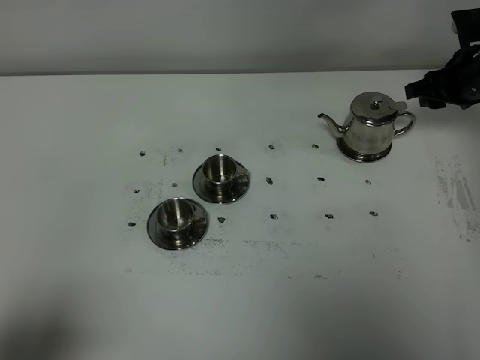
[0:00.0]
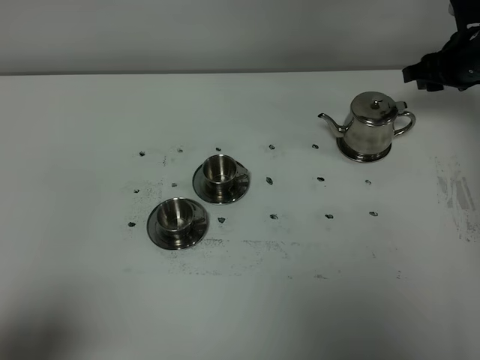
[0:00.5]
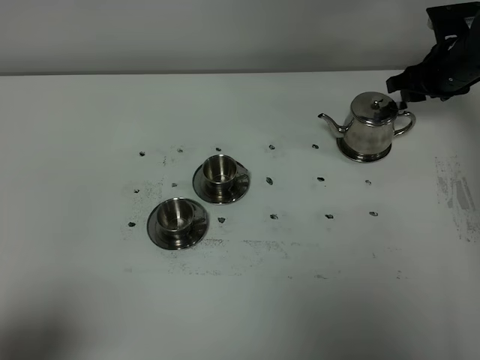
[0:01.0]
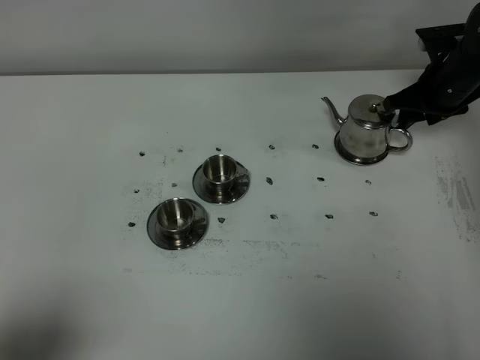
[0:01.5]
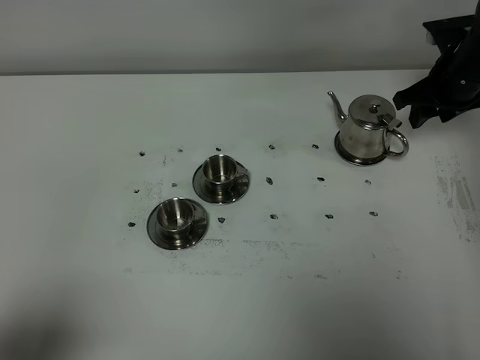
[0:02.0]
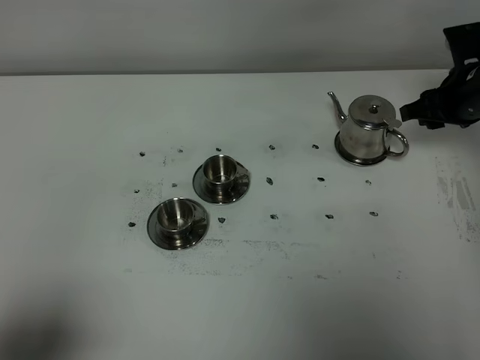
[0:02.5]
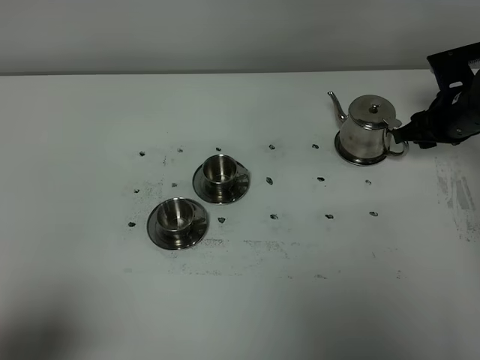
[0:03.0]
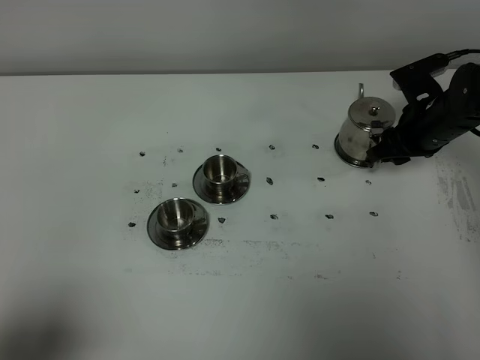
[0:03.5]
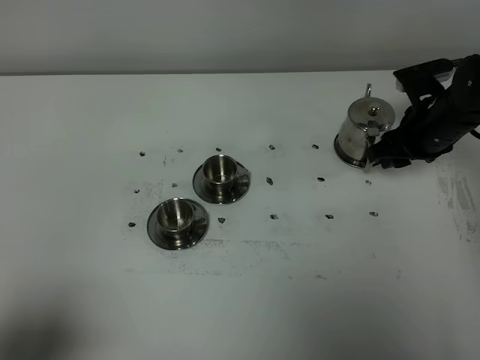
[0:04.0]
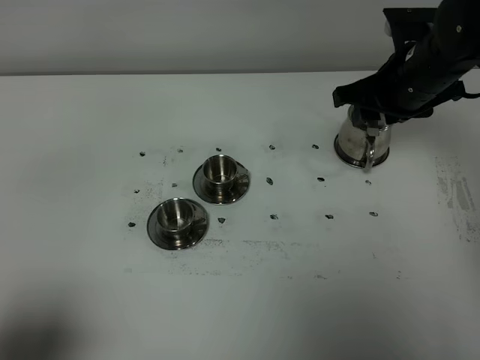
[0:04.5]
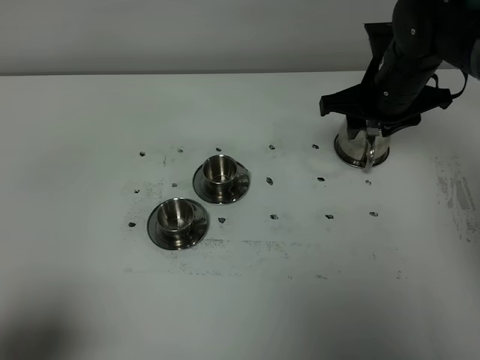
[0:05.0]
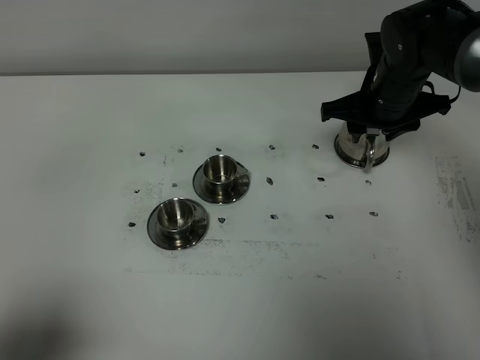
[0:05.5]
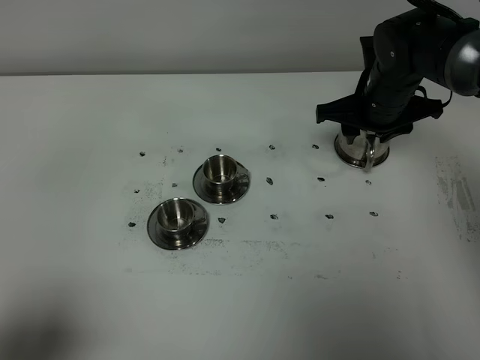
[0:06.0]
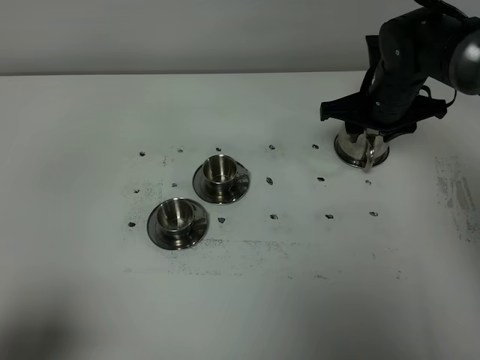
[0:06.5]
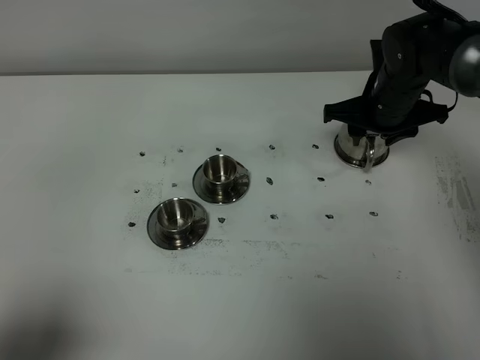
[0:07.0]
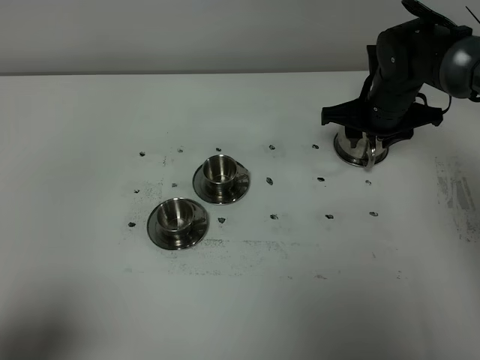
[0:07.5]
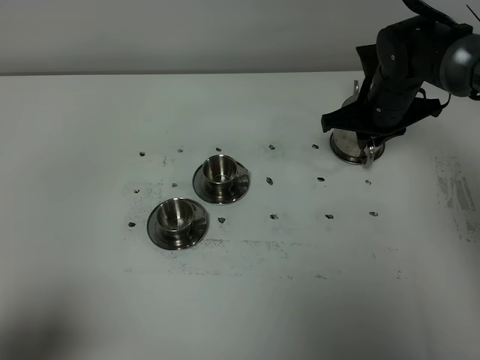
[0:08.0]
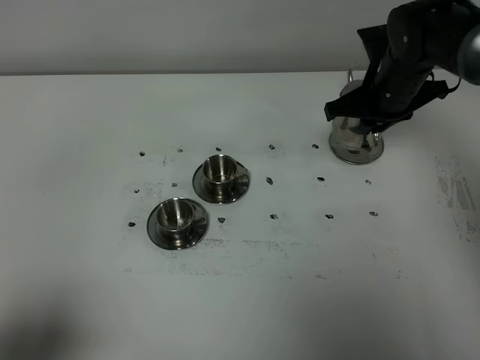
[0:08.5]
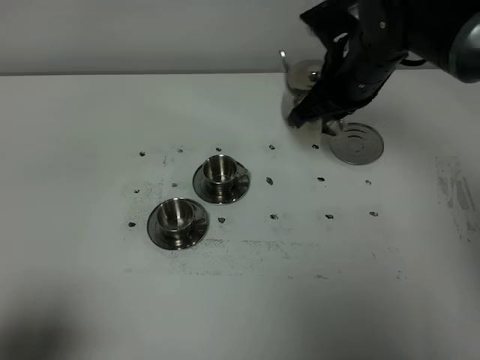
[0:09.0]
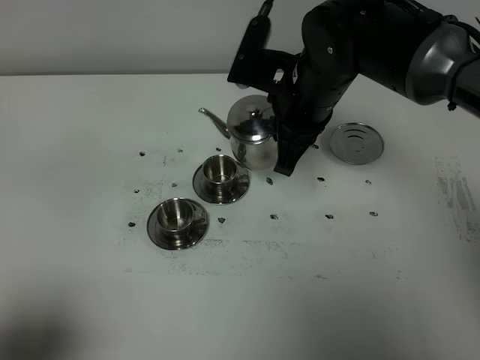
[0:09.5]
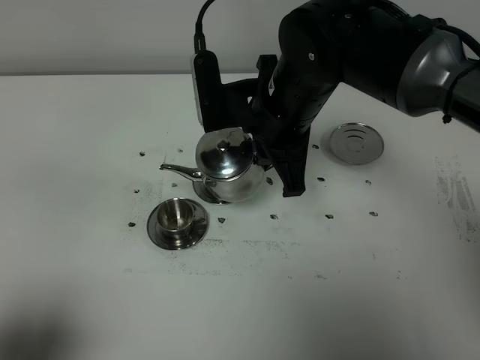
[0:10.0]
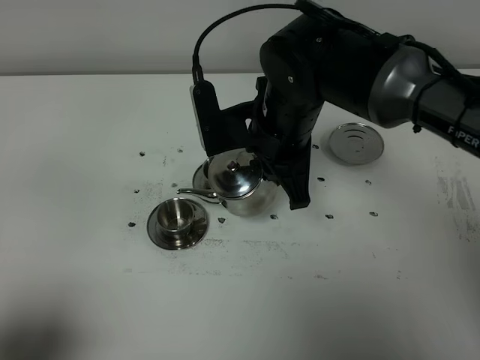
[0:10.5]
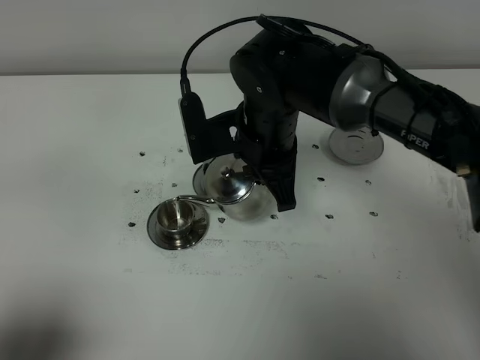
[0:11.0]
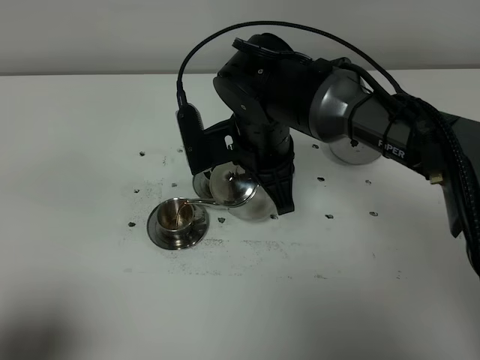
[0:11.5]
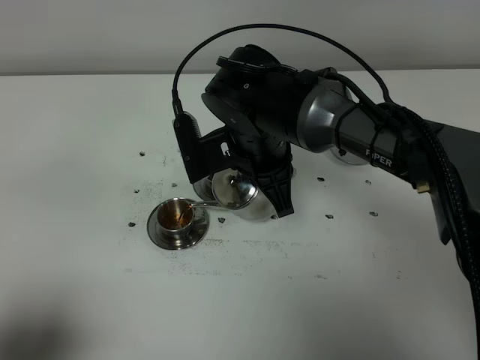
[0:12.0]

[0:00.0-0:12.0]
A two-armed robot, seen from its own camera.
Task of the whole recording: grasp the stainless steel teapot and pour the tea into the two stainless steel teacups one by one, put the stainless steel teapot back in its original place.
Step, 0:00.0 to 0:08.5: Pick up the teapot with the right gripper.
0:02.0 to 0:04.0: The right gripper moves backward, approximately 5 cm.
0:04.0 to 0:06.0: The right gripper is displaced to the left by approximately 5 cm, and travels upward and back again, some 10 cm each way.
0:06.0 to 0:08.0: The right gripper closes up.
0:08.0 to 0:10.0: The right gripper travels to the left, backward and upward by about 20 cm.
0:10.0 to 0:12.0: The right gripper heads downward, covering some 5 cm.

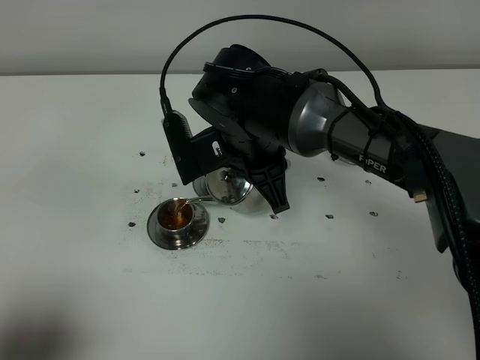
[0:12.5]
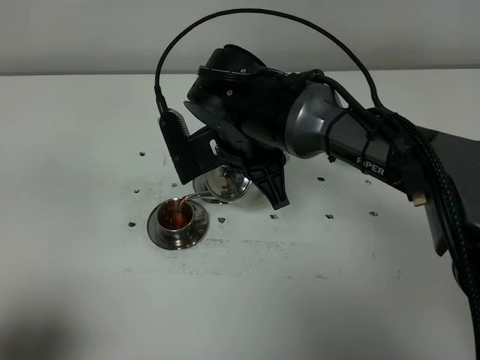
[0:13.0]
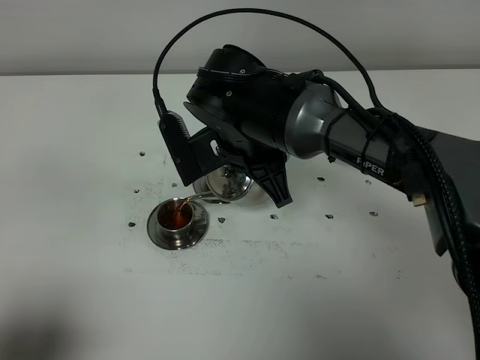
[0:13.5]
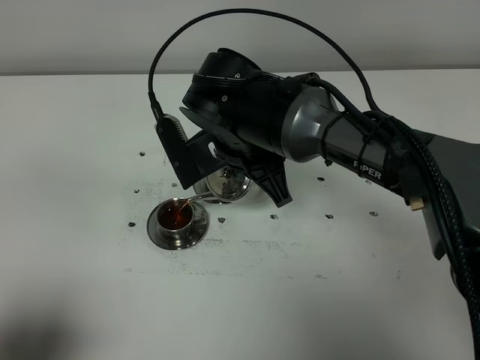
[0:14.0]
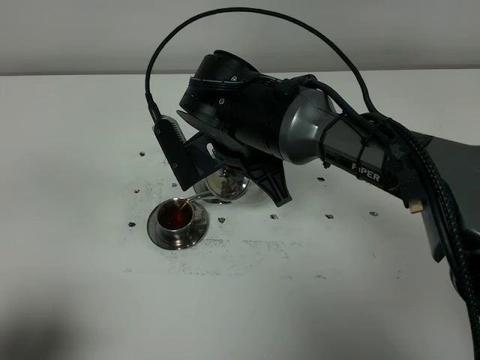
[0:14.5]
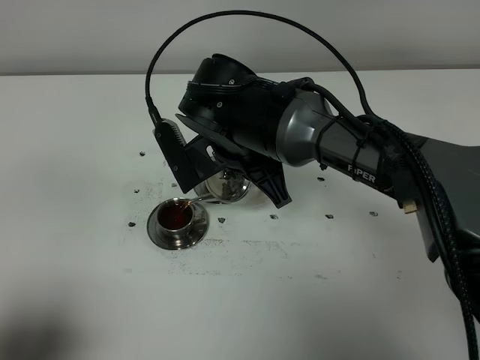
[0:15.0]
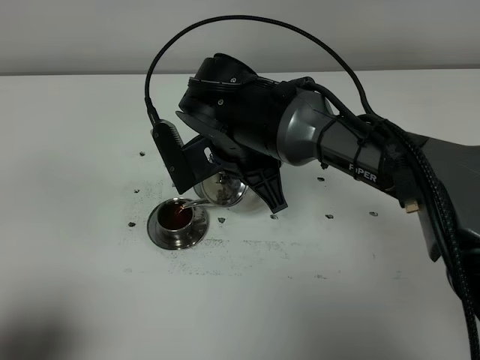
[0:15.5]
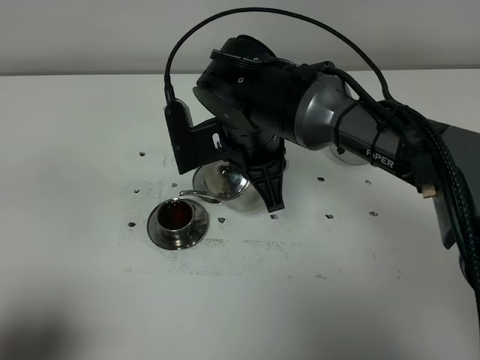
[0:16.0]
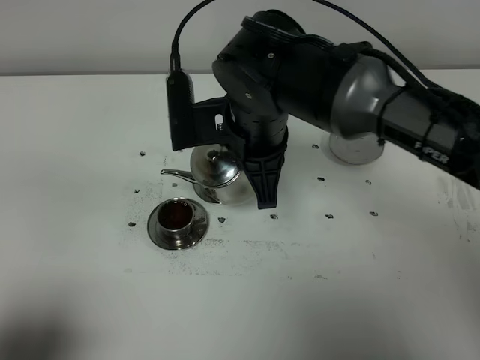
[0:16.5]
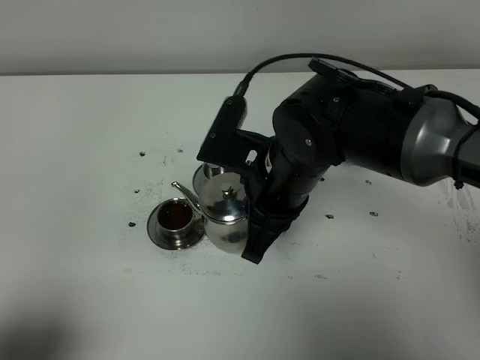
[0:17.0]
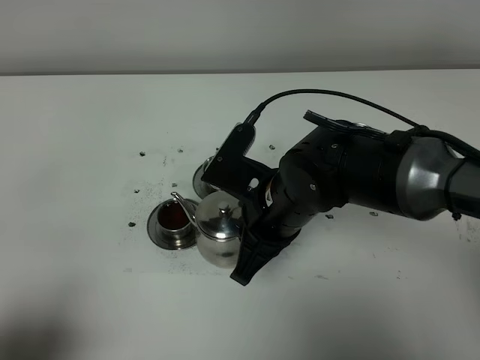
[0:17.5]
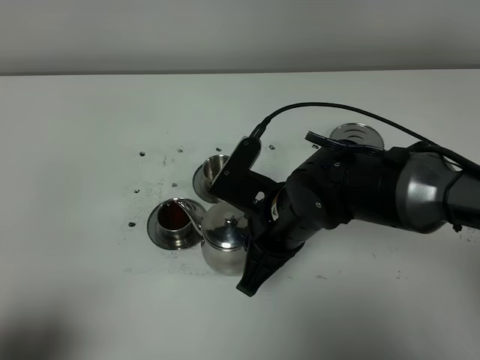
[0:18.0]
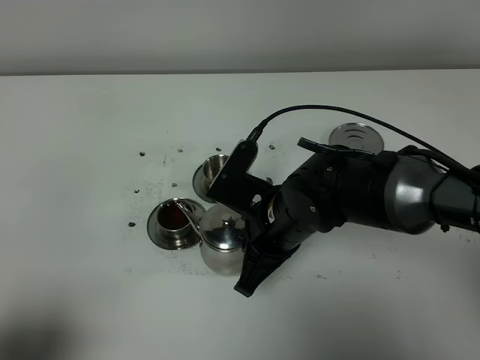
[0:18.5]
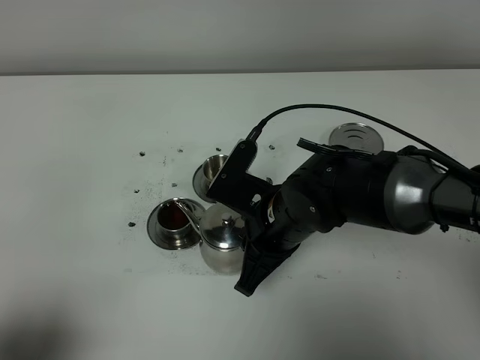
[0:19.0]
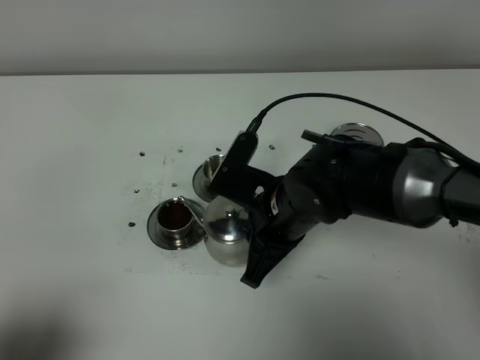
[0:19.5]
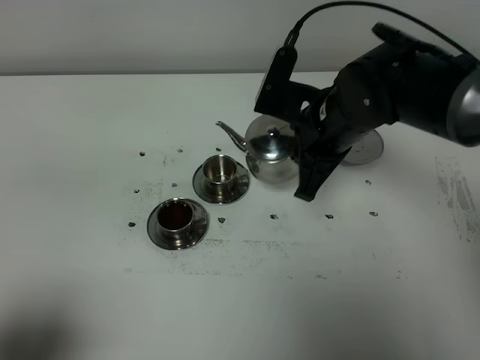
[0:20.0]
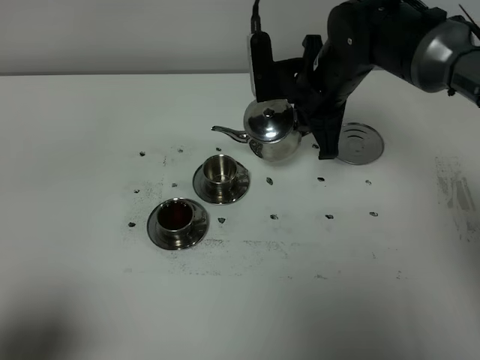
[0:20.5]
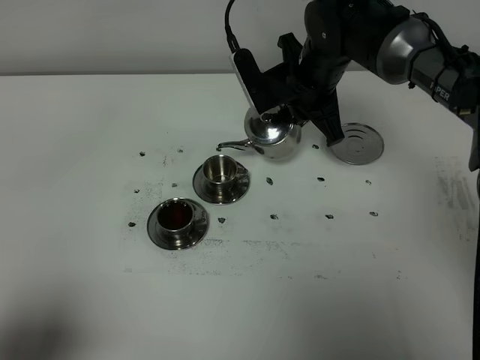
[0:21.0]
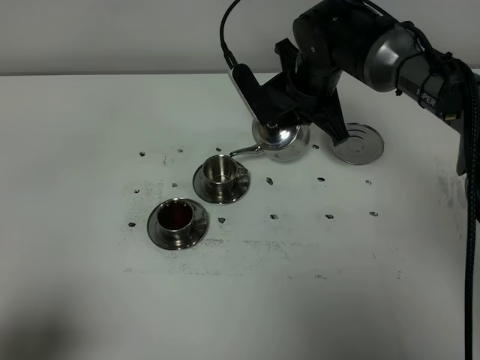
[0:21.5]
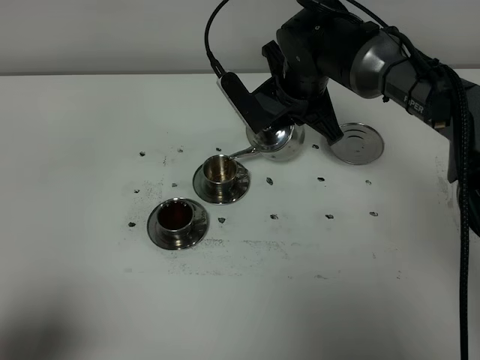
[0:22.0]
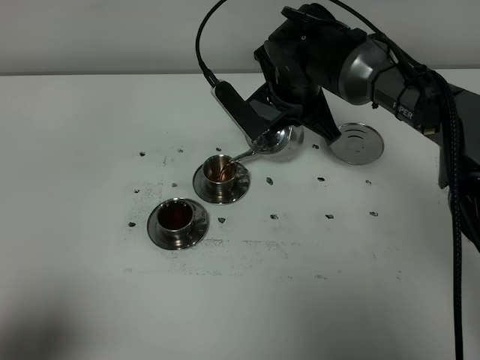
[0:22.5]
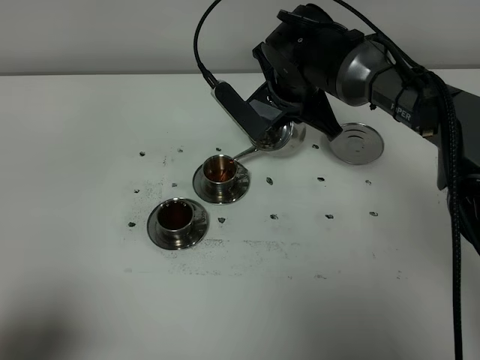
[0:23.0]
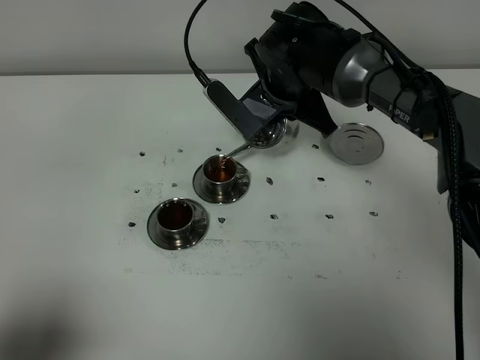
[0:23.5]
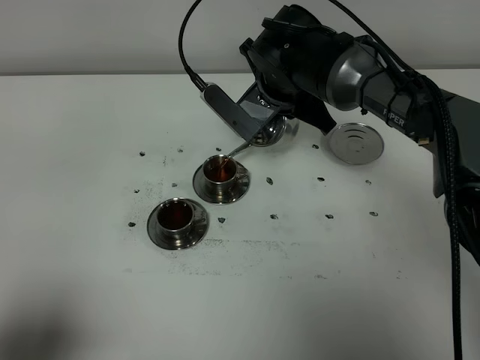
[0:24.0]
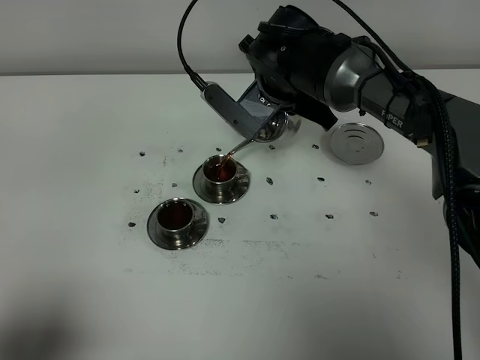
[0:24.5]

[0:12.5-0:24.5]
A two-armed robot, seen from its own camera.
Task of the whole recording: grasp the stainless steel teapot and pour the tea into the two stainless steel teacups one by one, put the stainless steel teapot back in its original place.
0:12.5 to 0:14.5: There are only small adjustments of the grippers.
0:16.5 to 0:18.5: The right gripper shifts approximately 10 cm downward and backward.
0:18.5 to 0:20.5: The right gripper is displaced forward and upward by about 15 cm.
0:22.5 to 0:24.5: The grippers stay close to where they were, moving slightly.

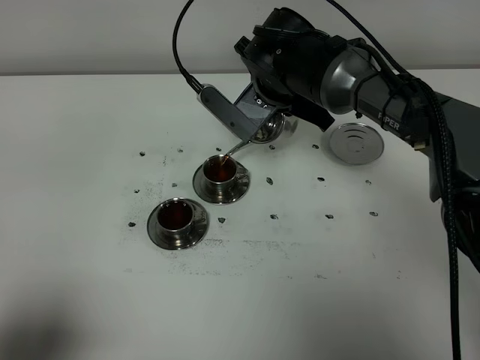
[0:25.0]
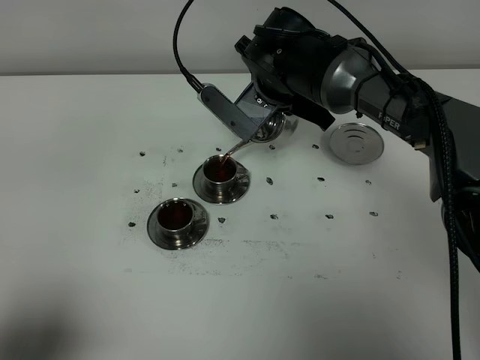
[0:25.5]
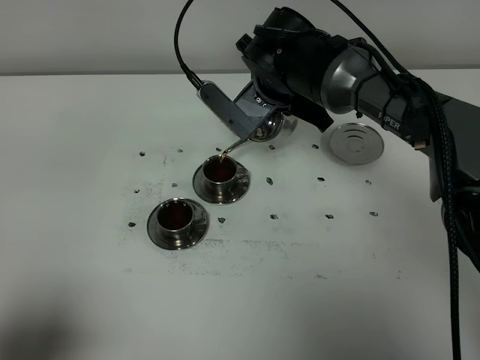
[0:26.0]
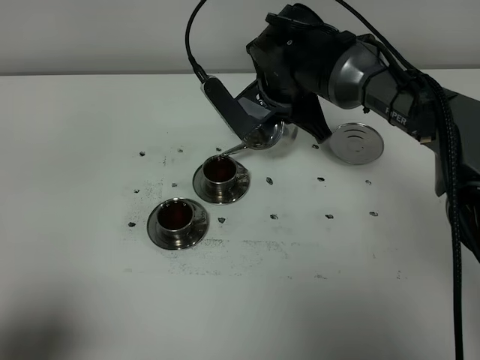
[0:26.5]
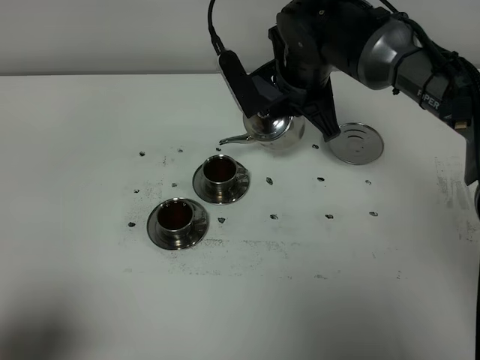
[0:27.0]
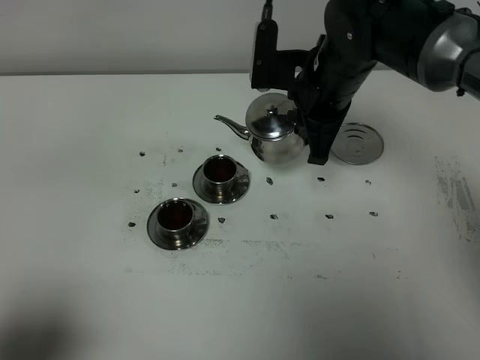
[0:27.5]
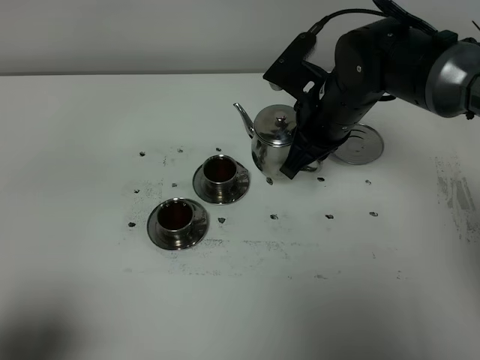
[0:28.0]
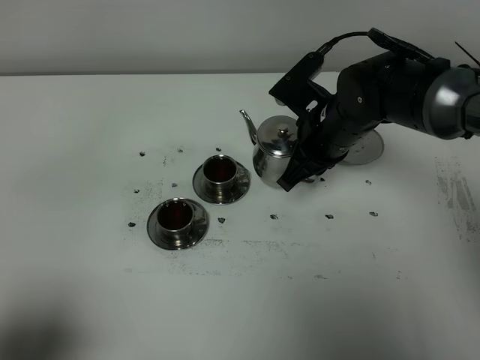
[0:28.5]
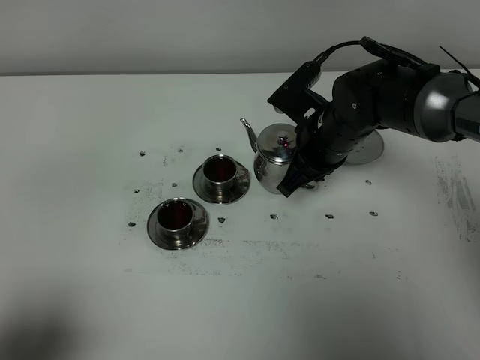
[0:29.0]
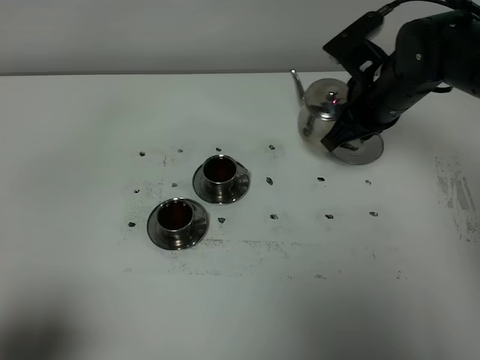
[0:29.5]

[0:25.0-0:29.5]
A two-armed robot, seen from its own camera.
Task of the whole recording: grasp the stainless steel teapot and pour the tea into the two stainless steel teacups one by one, put the stainless steel teapot back in its original place.
0:27.0 to 0:29.5: The right gripper moves to the right, about 10 cm.